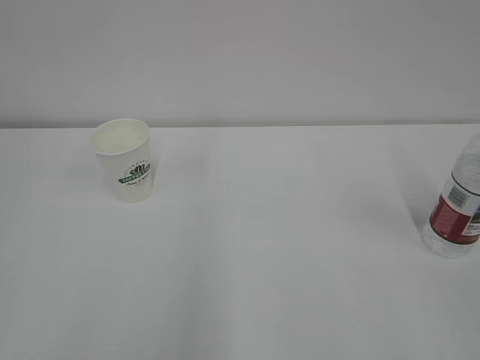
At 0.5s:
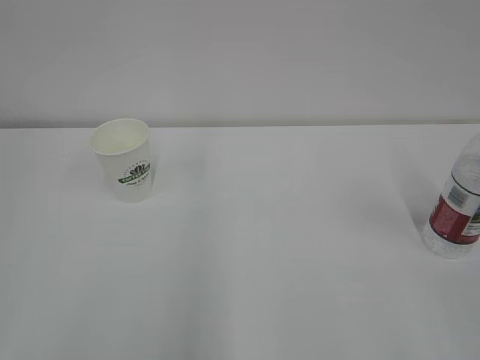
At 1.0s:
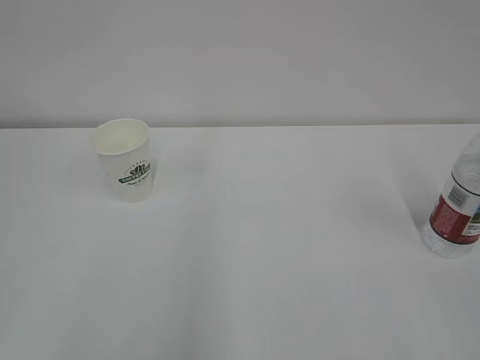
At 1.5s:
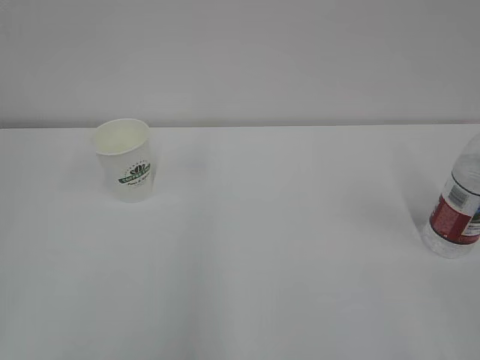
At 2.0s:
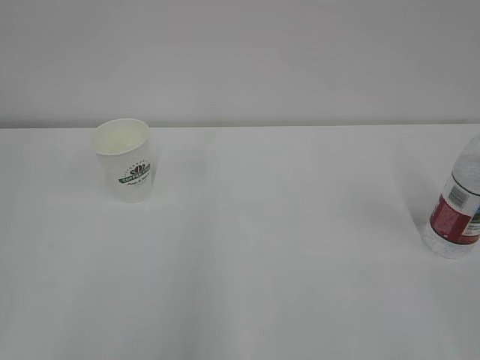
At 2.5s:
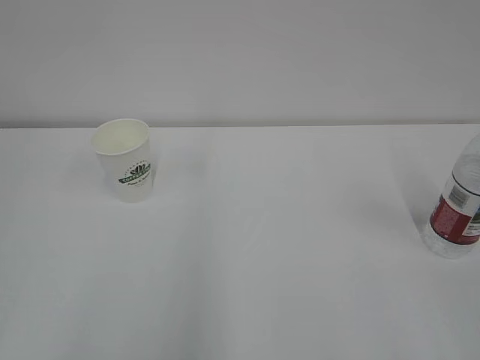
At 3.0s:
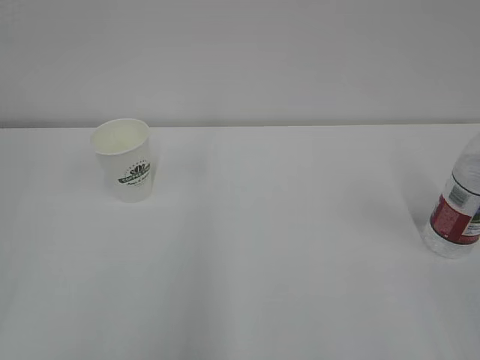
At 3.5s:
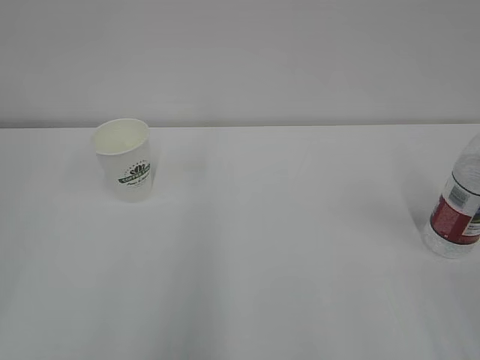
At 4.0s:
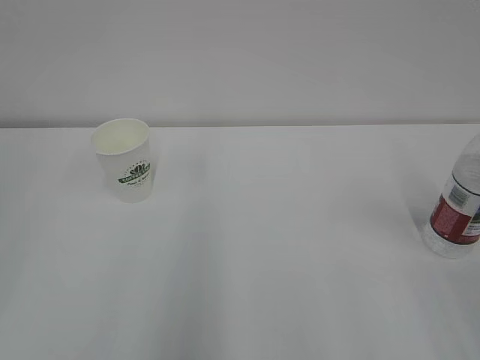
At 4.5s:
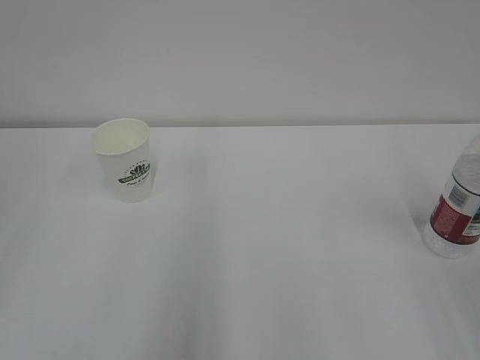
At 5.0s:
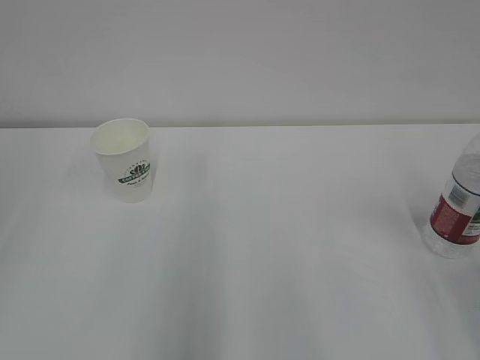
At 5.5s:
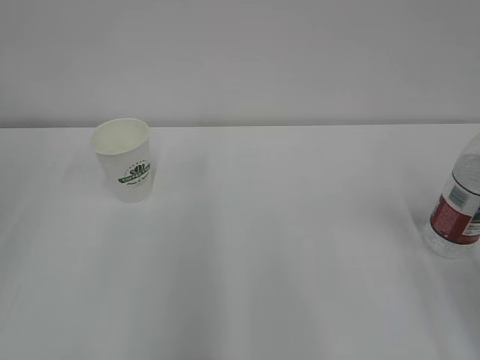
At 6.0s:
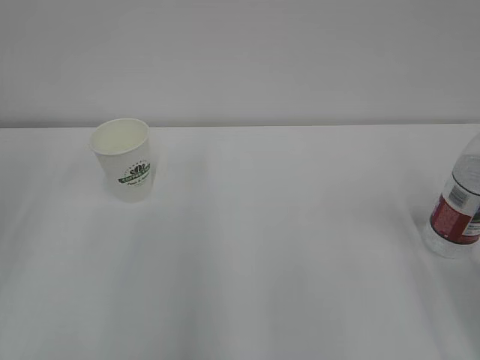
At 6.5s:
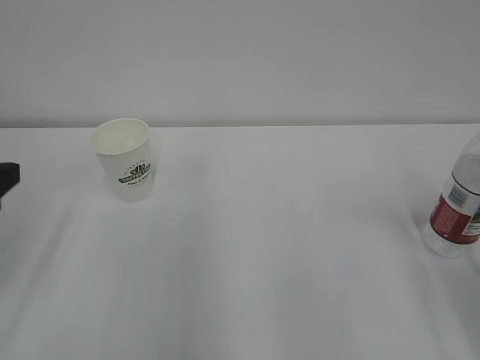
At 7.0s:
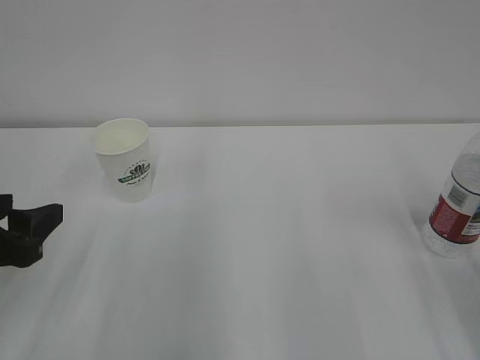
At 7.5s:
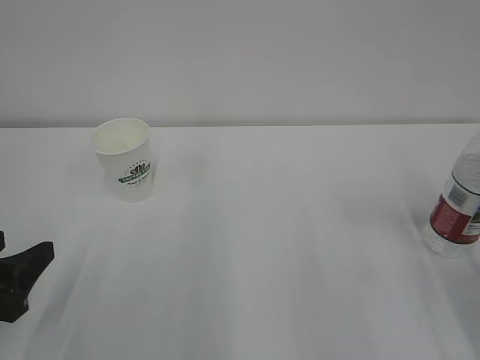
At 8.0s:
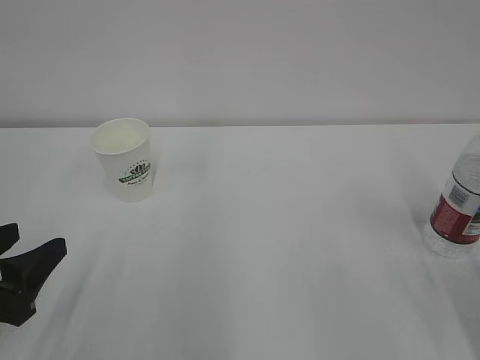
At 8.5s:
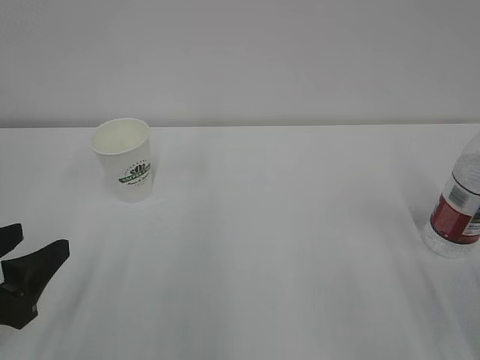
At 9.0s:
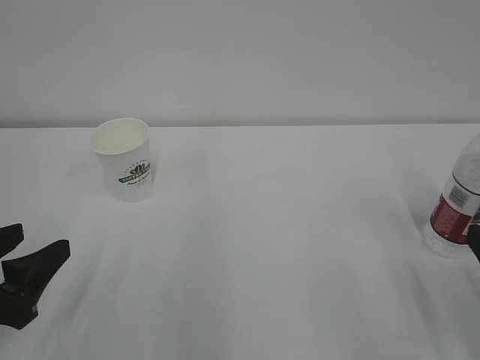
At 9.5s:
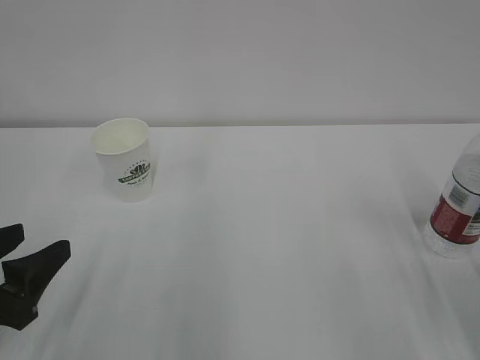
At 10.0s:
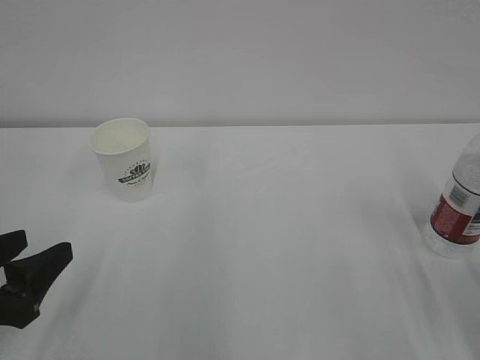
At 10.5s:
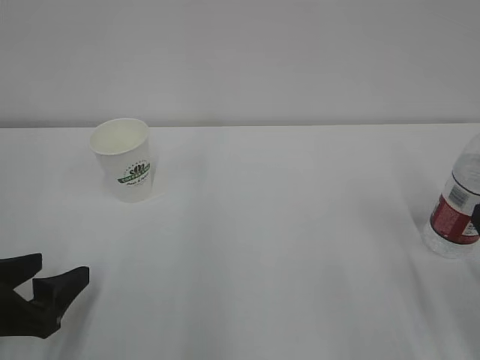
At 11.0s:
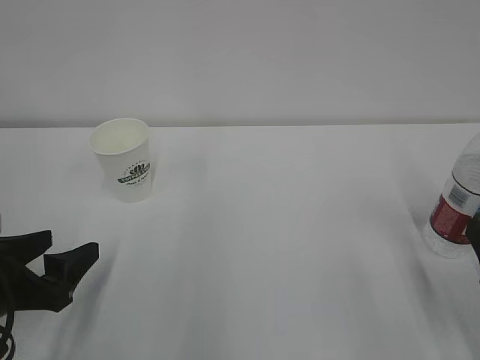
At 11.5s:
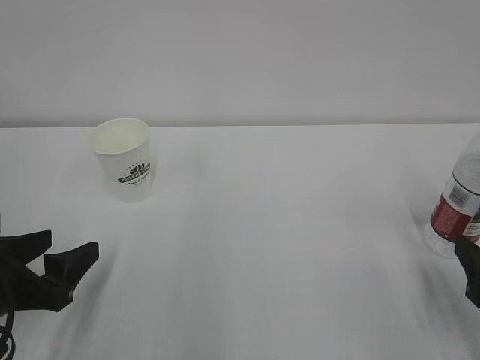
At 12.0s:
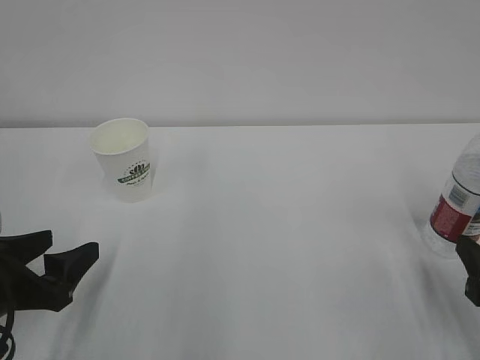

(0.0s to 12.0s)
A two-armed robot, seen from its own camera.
6.0s - 8.0s: The left gripper goes about 15 cm downward and to the right.
8.0s - 10.0s: The grippers make only small movements.
10.0s - 12.0s: The right gripper ends up roughly 5 cm from where it was.

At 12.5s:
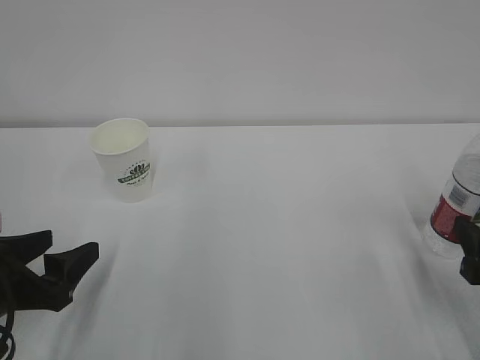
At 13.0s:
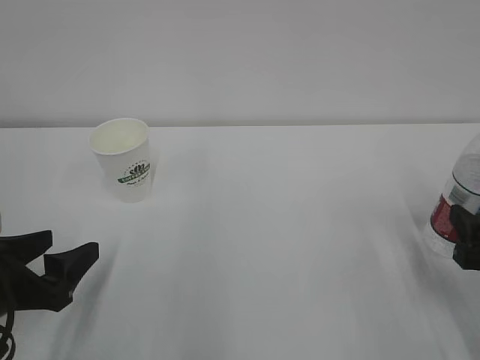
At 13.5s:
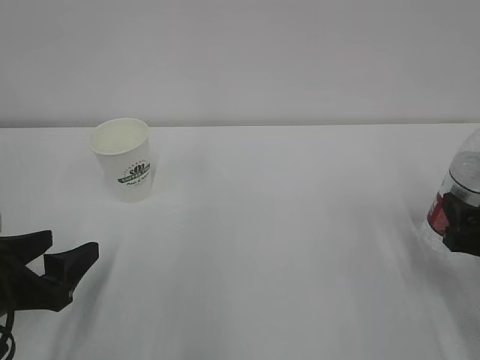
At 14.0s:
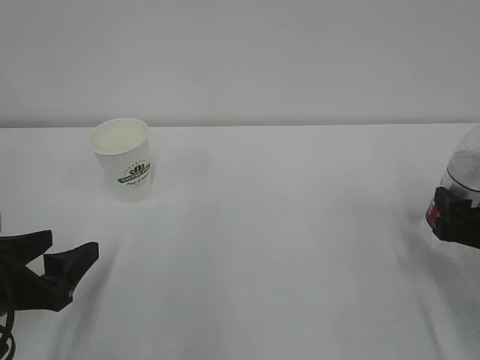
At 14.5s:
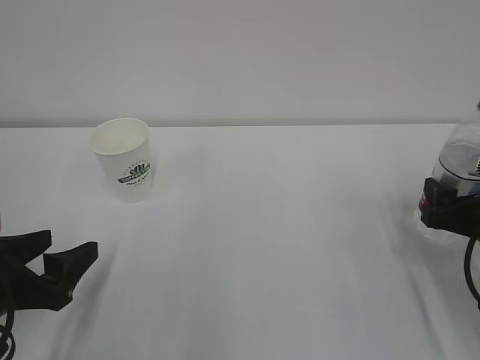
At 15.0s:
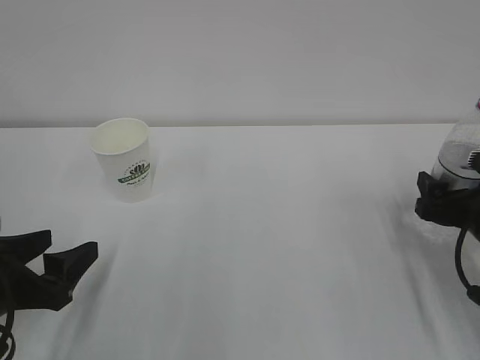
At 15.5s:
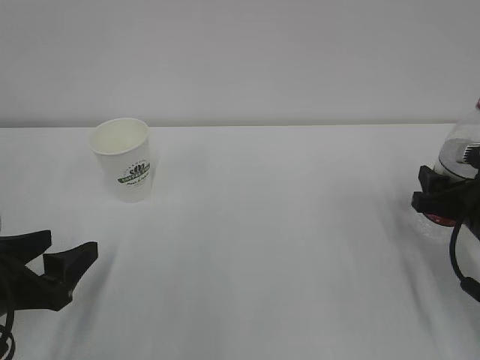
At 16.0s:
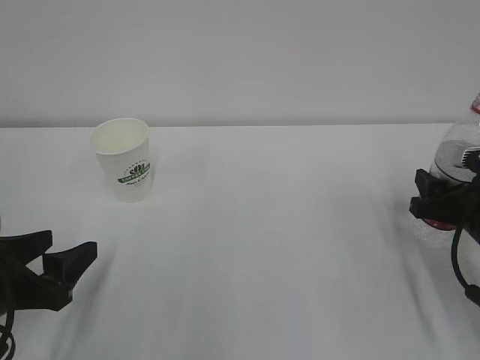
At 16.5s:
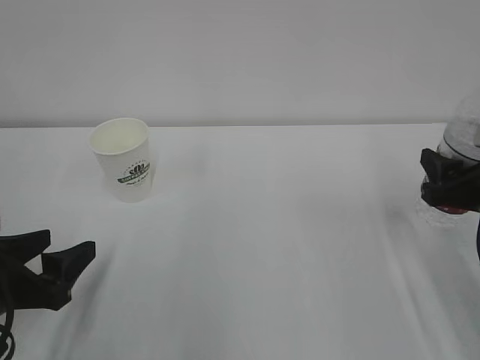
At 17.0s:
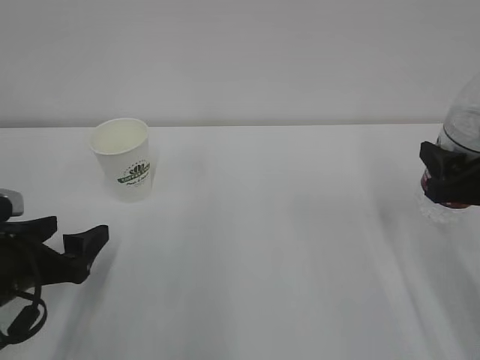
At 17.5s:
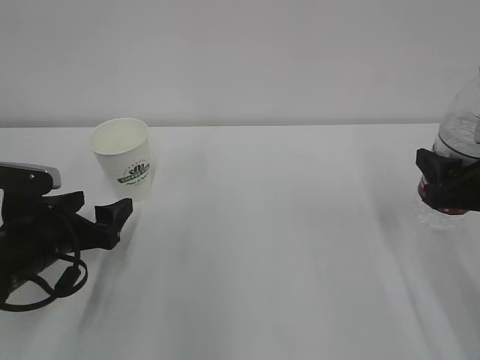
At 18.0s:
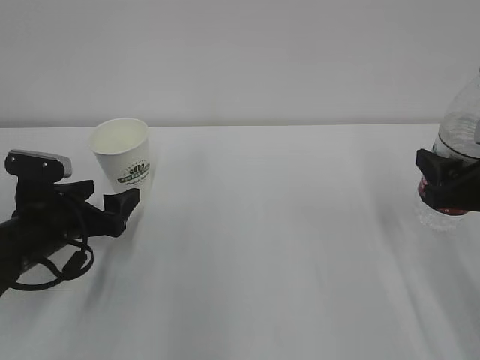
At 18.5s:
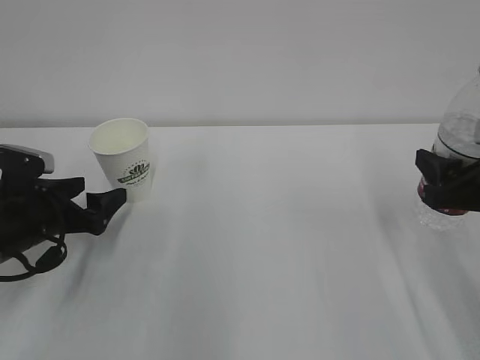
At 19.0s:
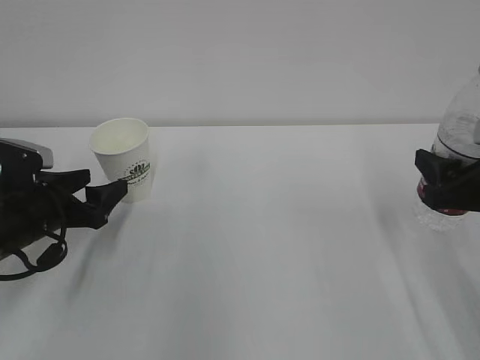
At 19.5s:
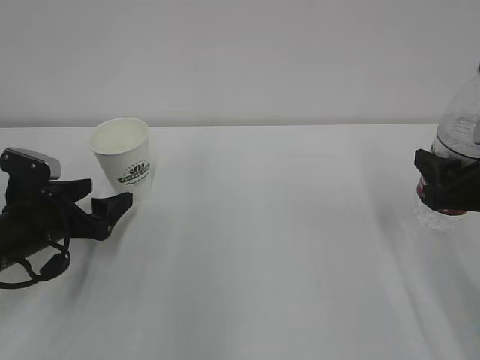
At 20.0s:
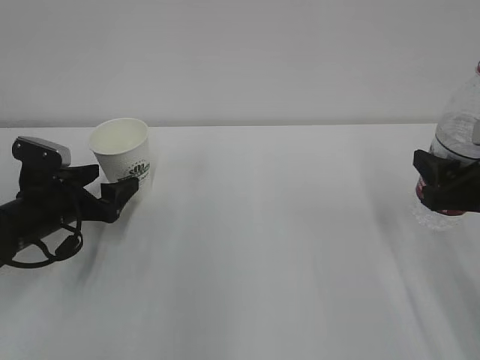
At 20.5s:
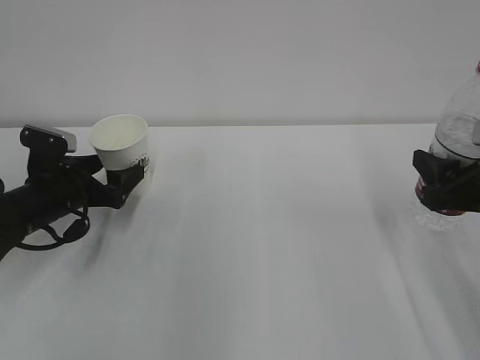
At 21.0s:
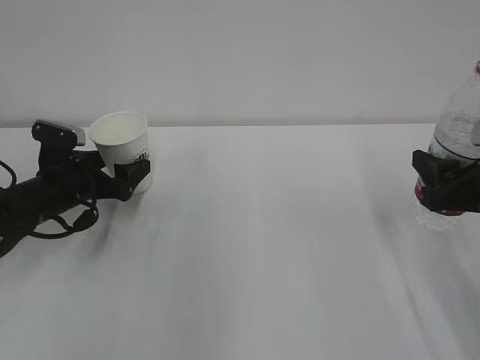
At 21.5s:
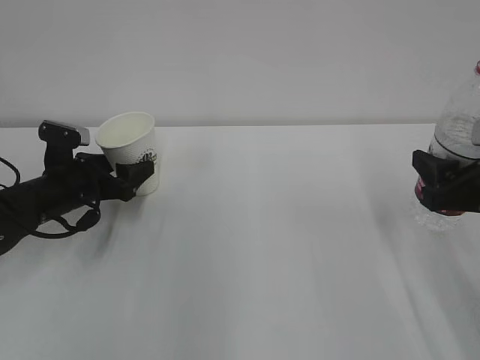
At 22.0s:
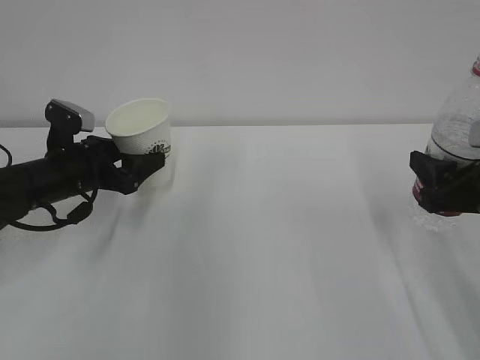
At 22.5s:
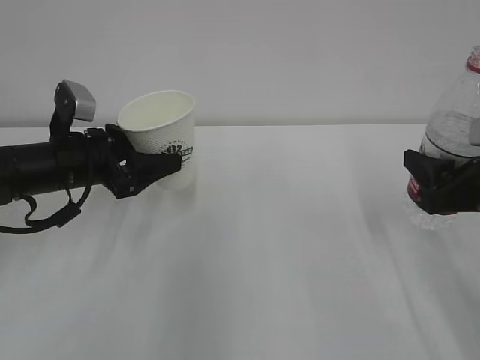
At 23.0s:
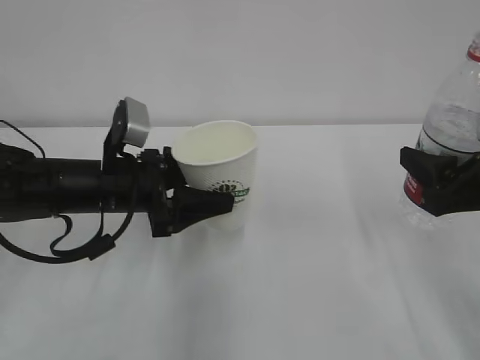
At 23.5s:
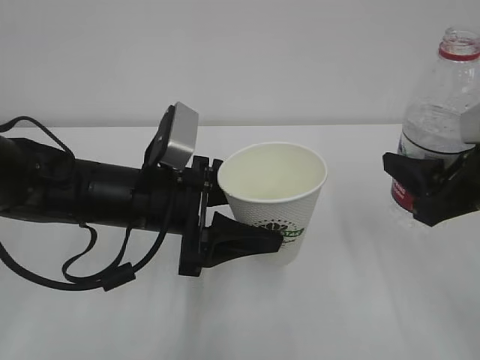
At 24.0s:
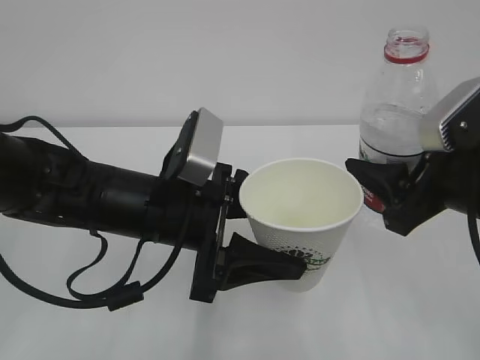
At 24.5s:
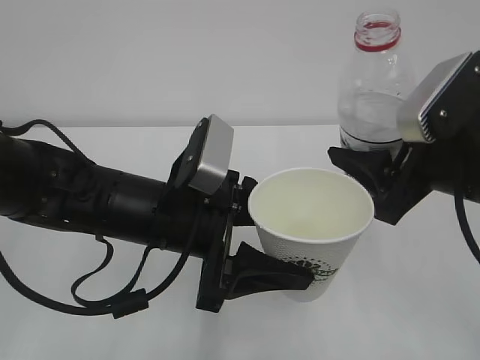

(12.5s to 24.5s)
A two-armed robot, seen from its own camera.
12.5s - 14.5s: The right gripper travels forward by roughly 10 cm.
14.5s - 16.5s: The right gripper is displaced upward by about 5 cm, and closes its fingers.
16.5s - 18.5s: The left gripper heads forward, covering about 10 cm, and opens up.
18.5s - 20.5s: The left gripper moves about 5 cm, and closes and opens again.
20.5s - 22.5s: The left gripper shifts approximately 5 cm upward, and closes its fingers.
22.5s - 24.5s: The right gripper heads to the left and upward, covering about 10 cm; the left gripper is displaced to the right and backward by approximately 20 cm.

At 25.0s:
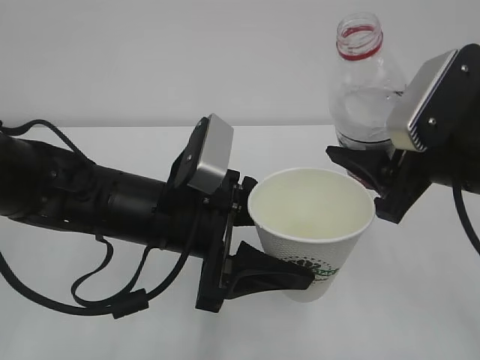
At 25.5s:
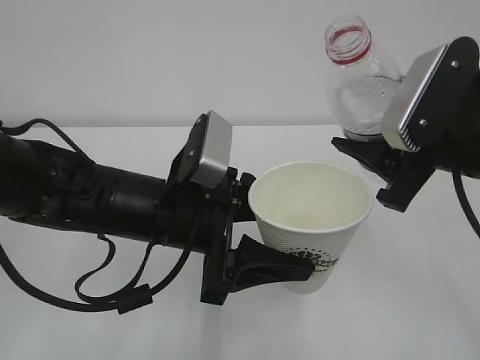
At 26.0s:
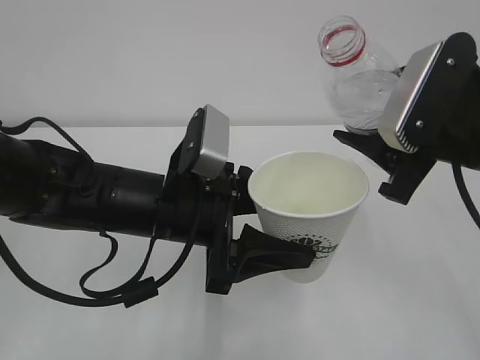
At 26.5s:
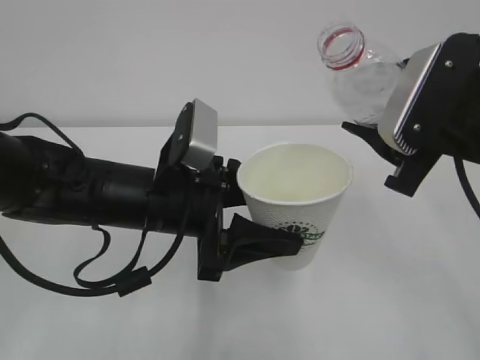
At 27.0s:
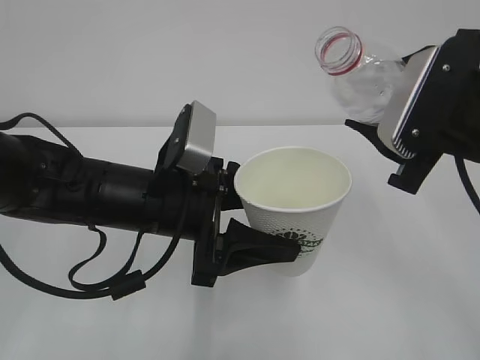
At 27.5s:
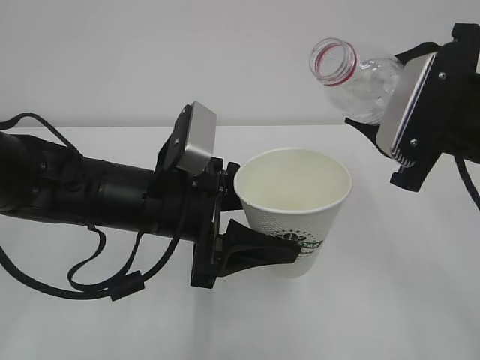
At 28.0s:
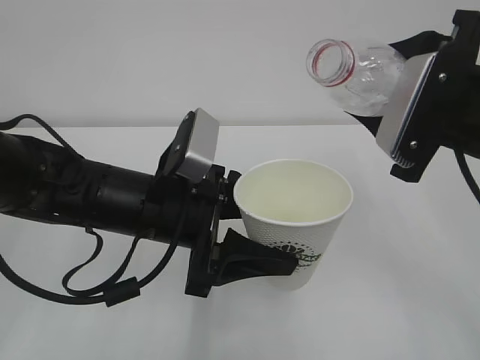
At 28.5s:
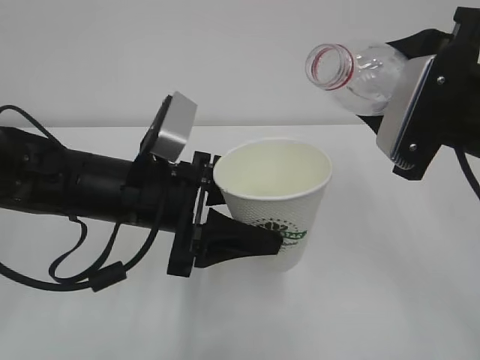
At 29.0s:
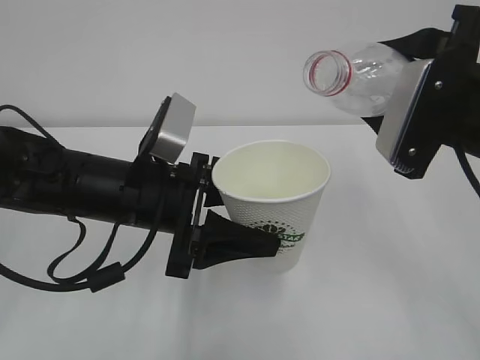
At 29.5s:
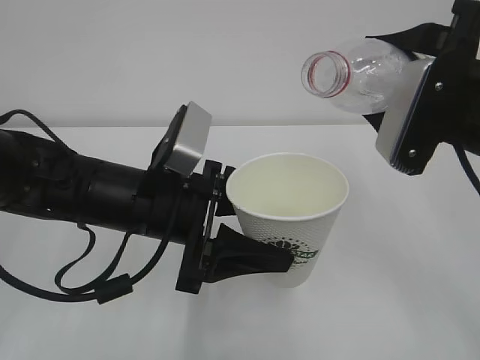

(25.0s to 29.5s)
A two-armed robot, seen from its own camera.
27.0s - 29.5s: The grippers make only small movements.
